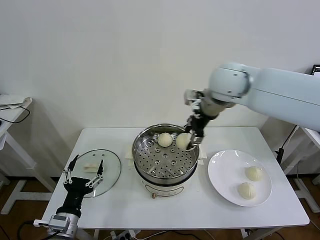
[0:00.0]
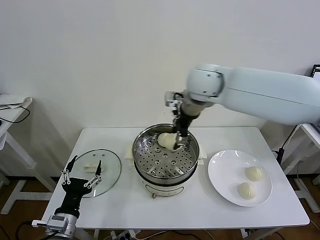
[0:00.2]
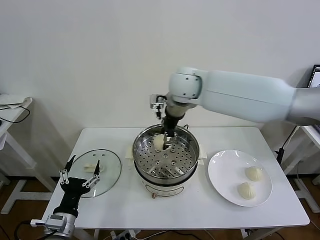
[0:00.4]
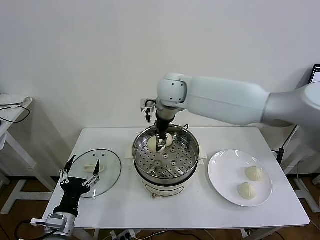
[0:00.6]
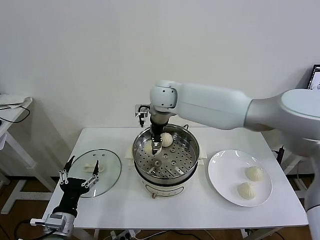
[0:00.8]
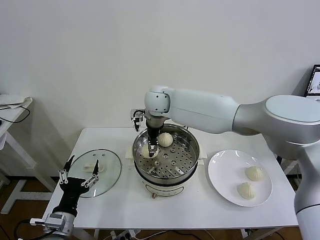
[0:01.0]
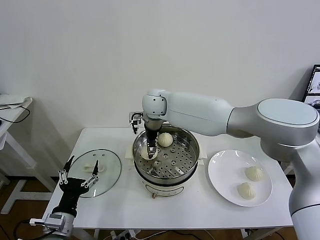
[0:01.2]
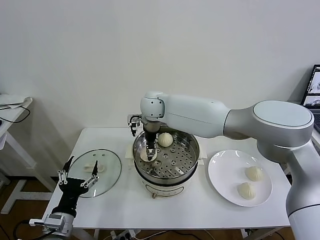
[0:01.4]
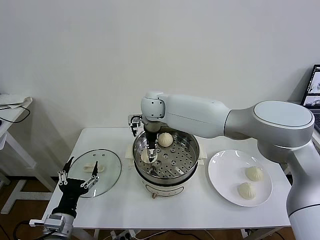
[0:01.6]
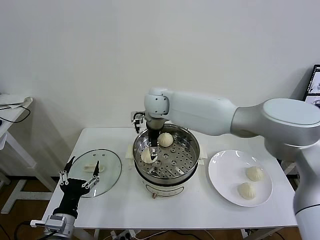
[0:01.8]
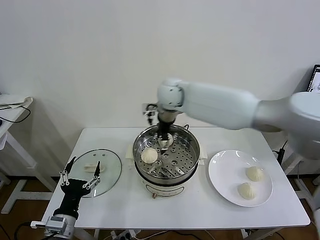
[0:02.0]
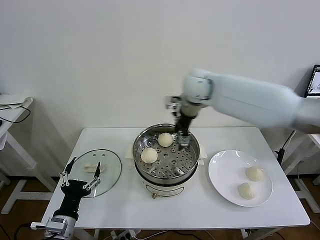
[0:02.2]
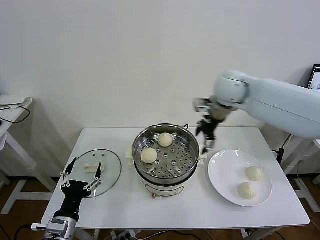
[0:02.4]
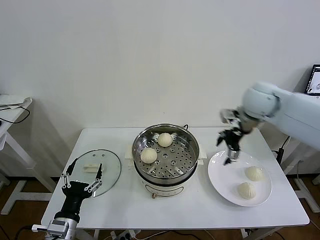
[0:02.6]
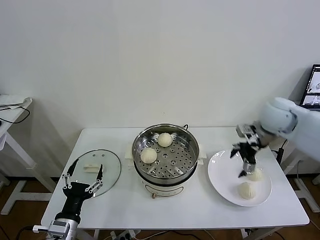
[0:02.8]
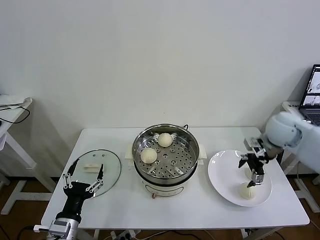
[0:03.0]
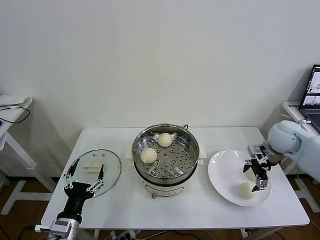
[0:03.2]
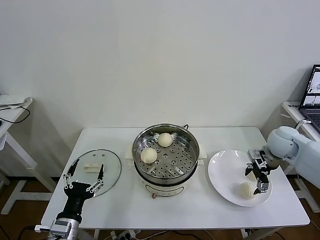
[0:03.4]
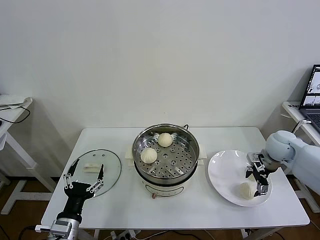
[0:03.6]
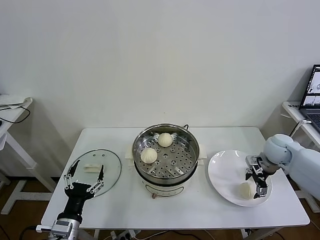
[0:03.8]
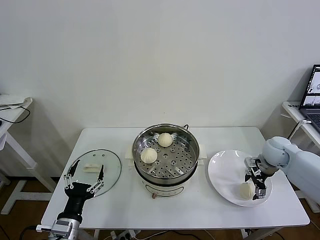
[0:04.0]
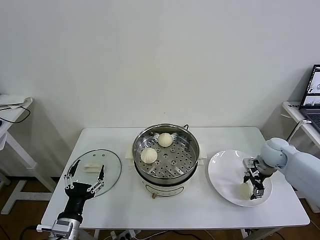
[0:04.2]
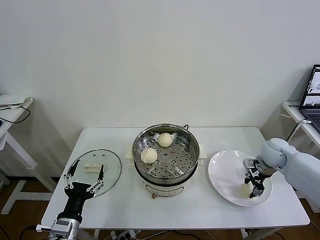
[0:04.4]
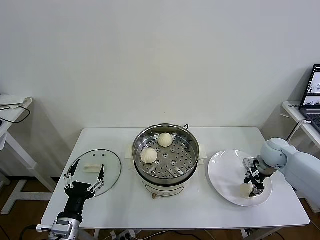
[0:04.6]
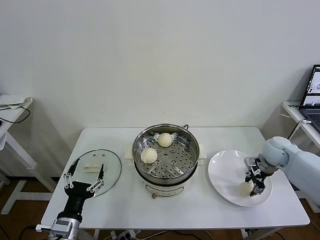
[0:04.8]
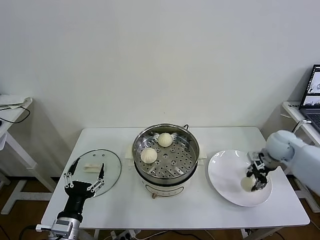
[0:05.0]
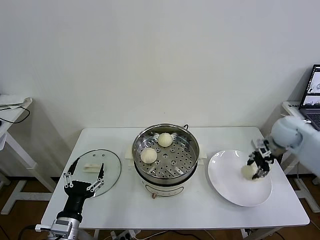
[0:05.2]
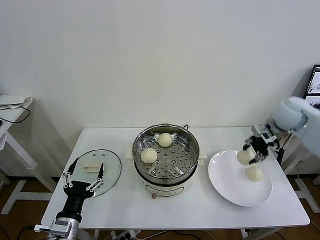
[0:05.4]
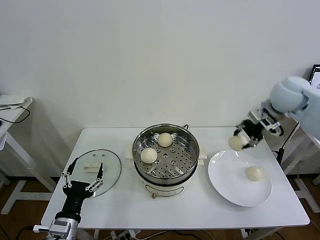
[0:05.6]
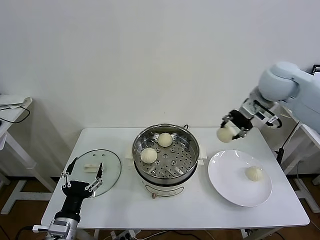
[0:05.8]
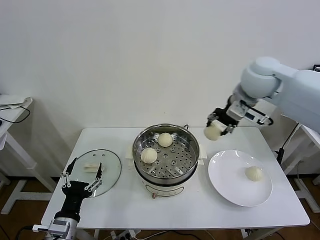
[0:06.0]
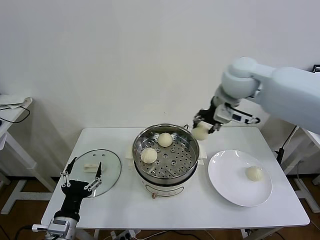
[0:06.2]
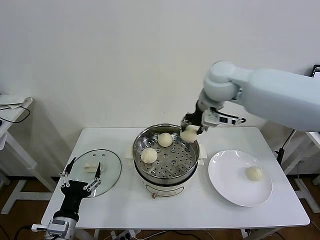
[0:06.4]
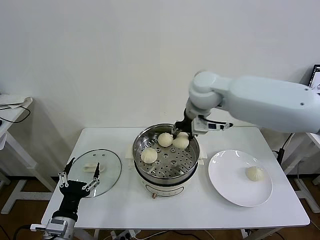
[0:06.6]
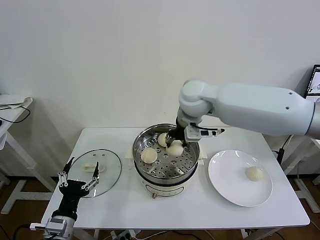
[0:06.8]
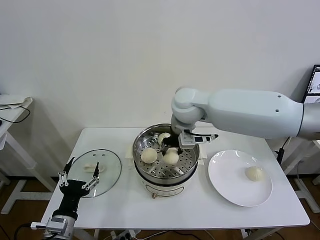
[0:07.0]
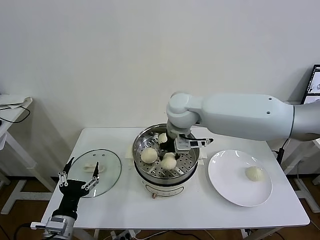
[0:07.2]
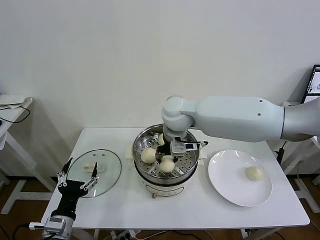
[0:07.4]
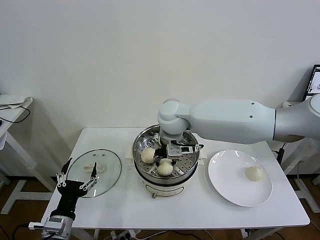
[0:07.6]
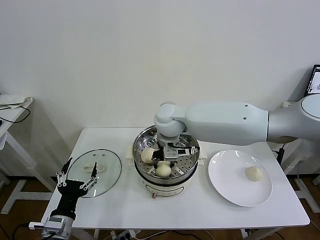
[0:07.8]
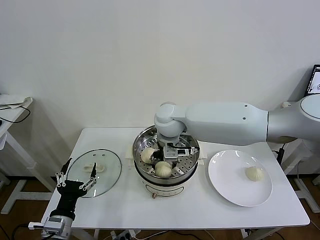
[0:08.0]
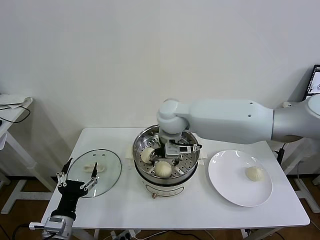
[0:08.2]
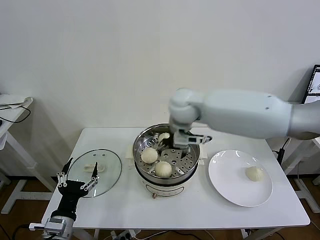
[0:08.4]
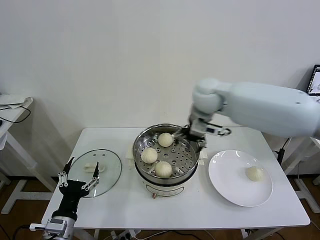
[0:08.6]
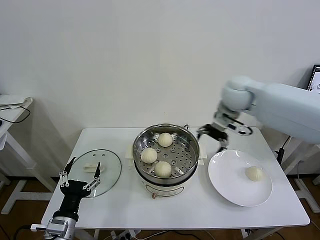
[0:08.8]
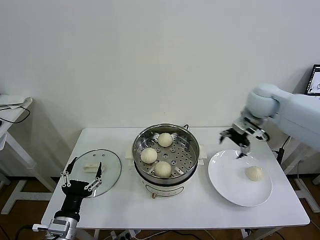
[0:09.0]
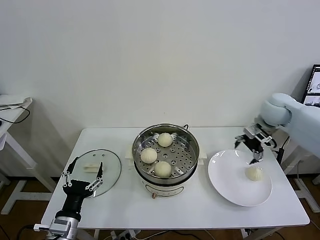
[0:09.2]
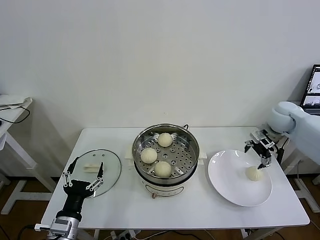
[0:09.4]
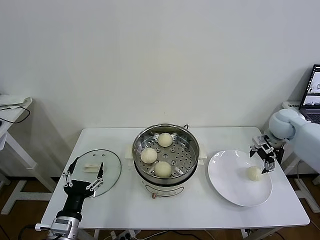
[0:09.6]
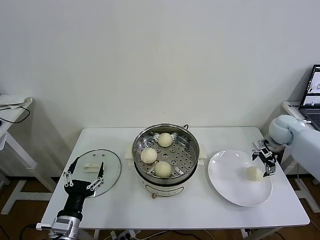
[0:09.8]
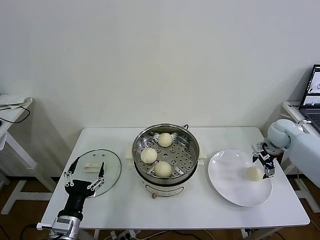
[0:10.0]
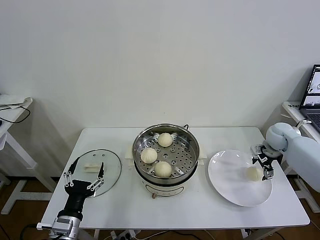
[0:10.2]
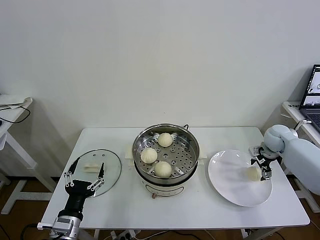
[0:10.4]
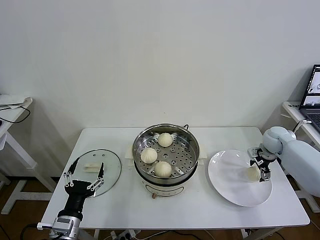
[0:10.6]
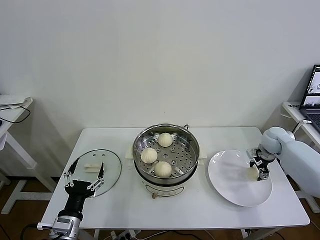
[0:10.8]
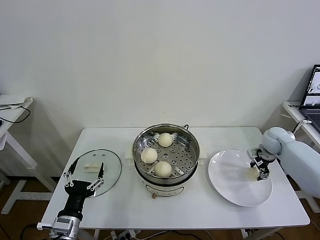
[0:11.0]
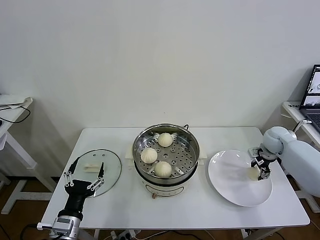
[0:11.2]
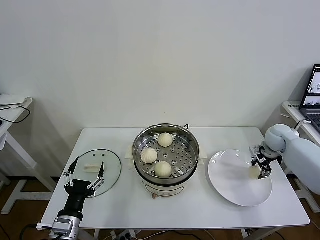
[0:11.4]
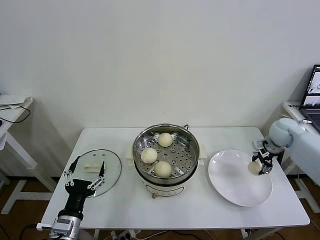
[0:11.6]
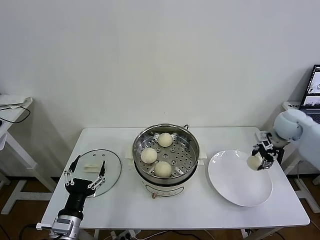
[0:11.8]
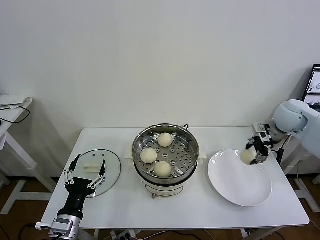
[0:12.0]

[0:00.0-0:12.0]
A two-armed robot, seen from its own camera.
Task of the whole recording: take steamed baozi put them in steamer then cover it.
Step, 0:00.0 to 0:01.6: Place the baozi on the steamer with right gripper.
Step, 0:01.8 to 0:04.4: Grasp the baozi in the plate with right gripper.
Step, 0:04.6 to 0:08.0: Place the baozi on the steamer with right gripper.
Step, 0:08.2 to 0:11.0: Grasp the baozi in the plate with right gripper.
0:00.0 to 0:01.6: The right gripper shifts some 20 cm to the left and downward, and opens its fingers.
0:01.6 to 0:03.0: The right gripper is displaced to the right by approximately 40 cm.
0:03.0 to 0:04.4: The right gripper moves downward, some 10 cm, and closes up.
0:04.4 to 0:06.0: The right gripper is displaced upward and to the left by about 35 cm.
0:06.0 to 0:07.6: The right gripper moves to the left and downward, about 25 cm.
0:07.6 to 0:09.0: The right gripper goes roughly 30 cm to the right, and opens.
0:09.0 to 0:10.4: The right gripper travels downward and to the right by roughly 20 cm.
0:10.4 to 0:12.0: The right gripper travels upward by about 15 cm, and closes.

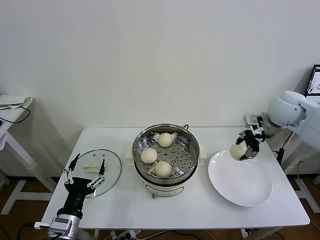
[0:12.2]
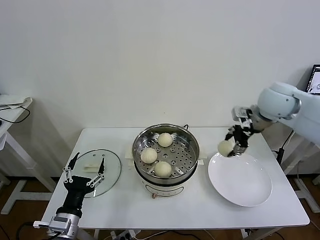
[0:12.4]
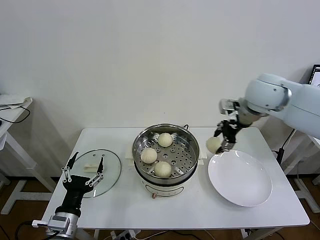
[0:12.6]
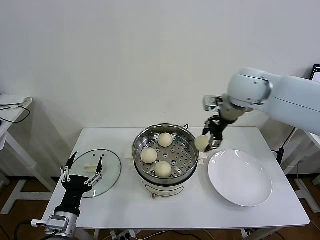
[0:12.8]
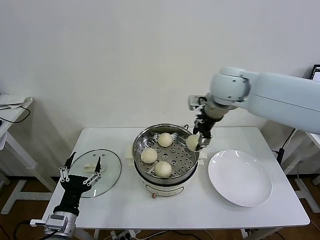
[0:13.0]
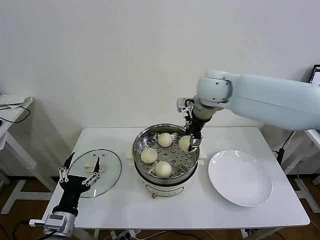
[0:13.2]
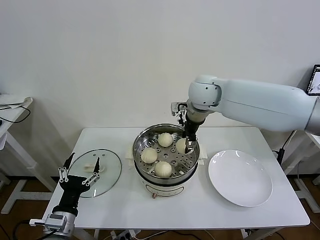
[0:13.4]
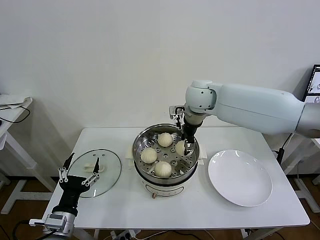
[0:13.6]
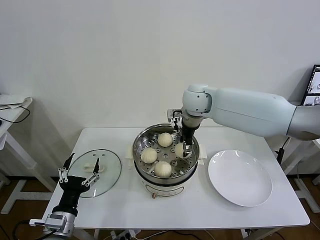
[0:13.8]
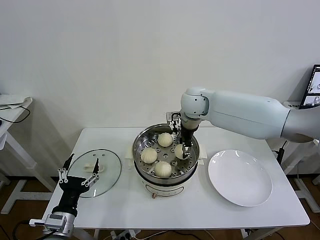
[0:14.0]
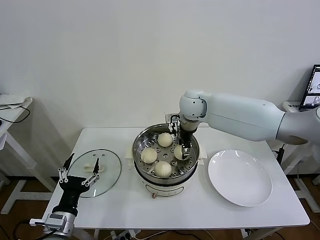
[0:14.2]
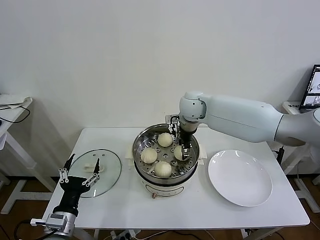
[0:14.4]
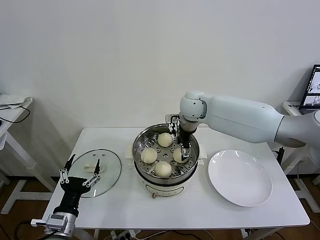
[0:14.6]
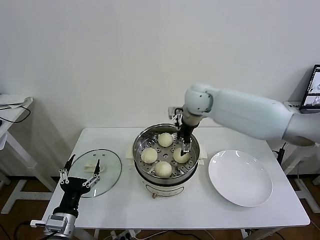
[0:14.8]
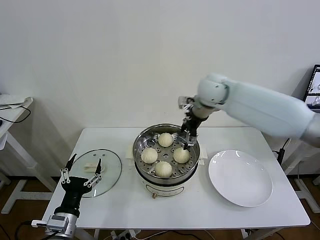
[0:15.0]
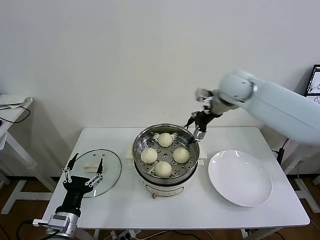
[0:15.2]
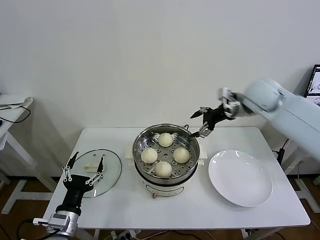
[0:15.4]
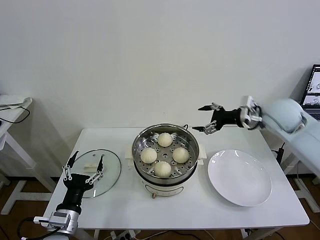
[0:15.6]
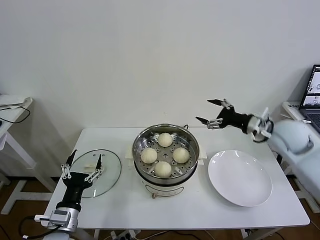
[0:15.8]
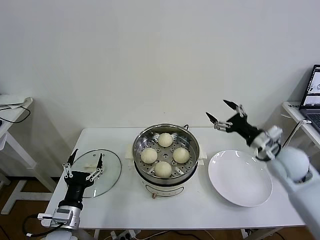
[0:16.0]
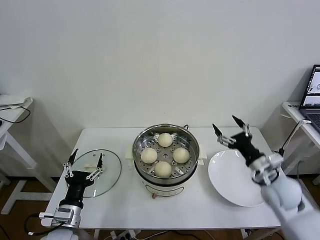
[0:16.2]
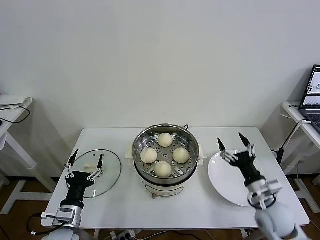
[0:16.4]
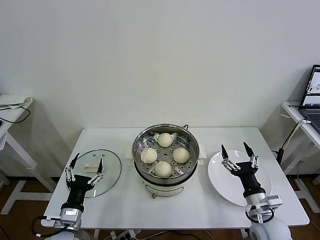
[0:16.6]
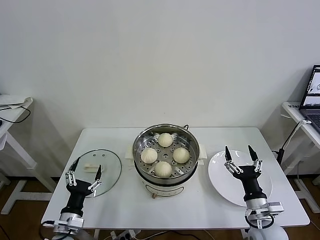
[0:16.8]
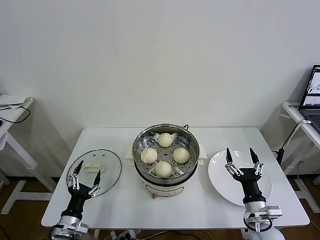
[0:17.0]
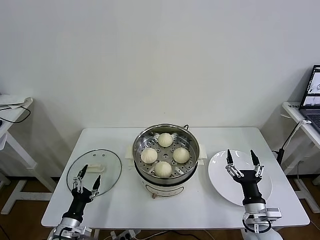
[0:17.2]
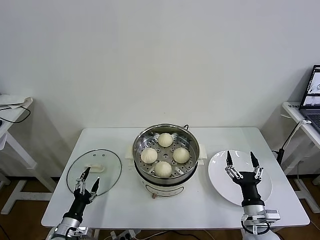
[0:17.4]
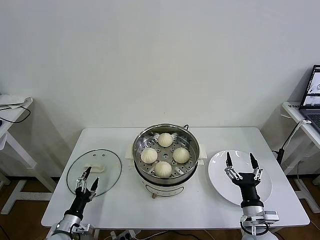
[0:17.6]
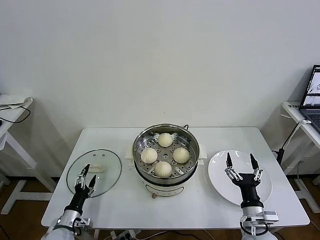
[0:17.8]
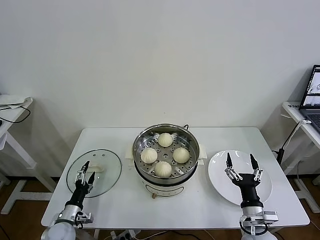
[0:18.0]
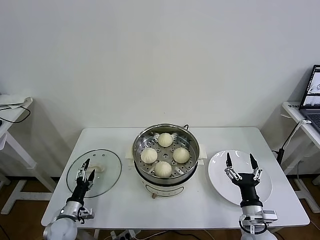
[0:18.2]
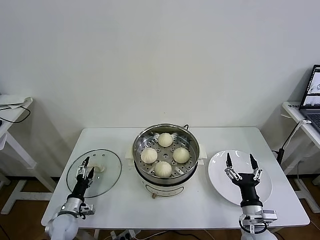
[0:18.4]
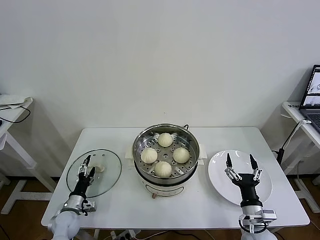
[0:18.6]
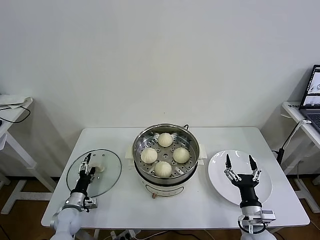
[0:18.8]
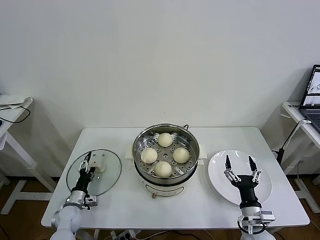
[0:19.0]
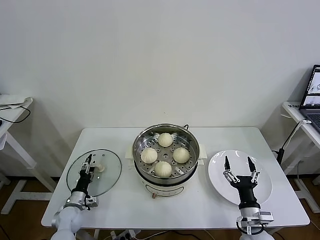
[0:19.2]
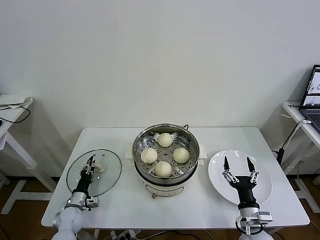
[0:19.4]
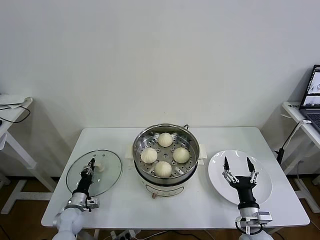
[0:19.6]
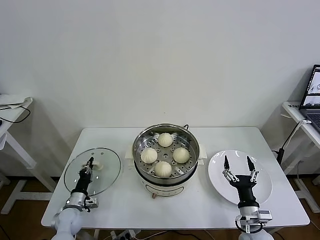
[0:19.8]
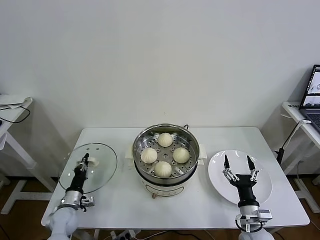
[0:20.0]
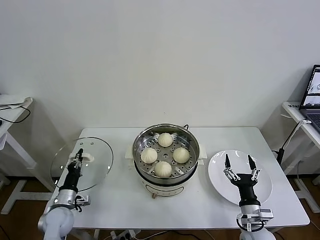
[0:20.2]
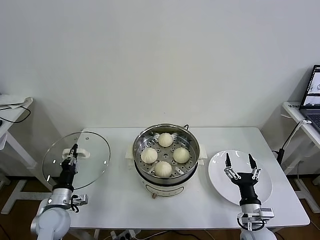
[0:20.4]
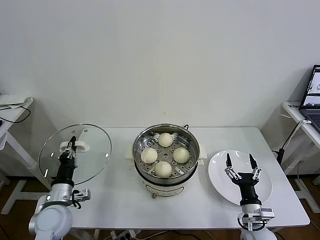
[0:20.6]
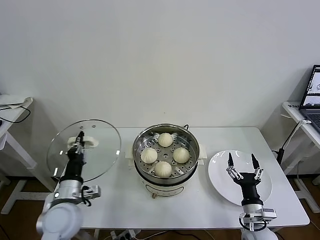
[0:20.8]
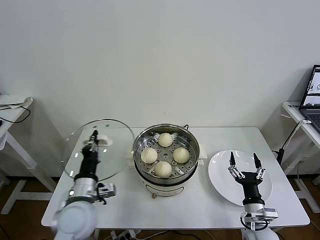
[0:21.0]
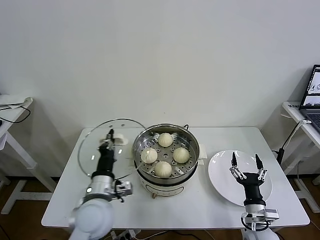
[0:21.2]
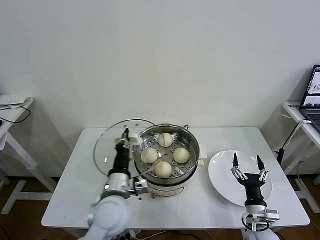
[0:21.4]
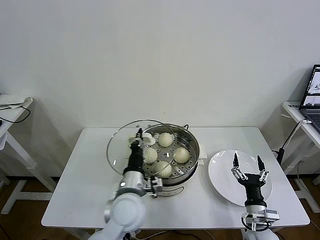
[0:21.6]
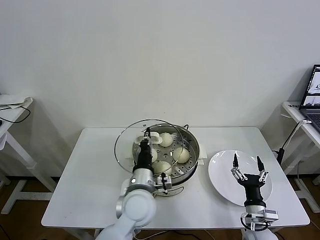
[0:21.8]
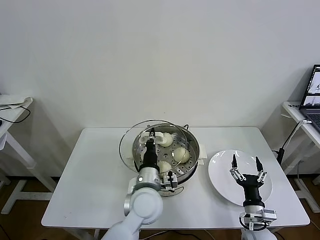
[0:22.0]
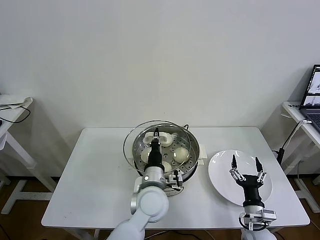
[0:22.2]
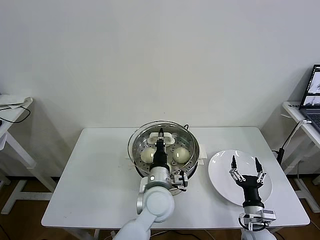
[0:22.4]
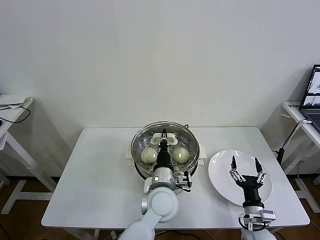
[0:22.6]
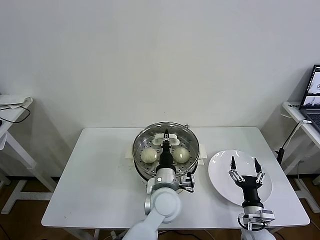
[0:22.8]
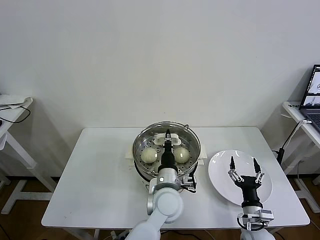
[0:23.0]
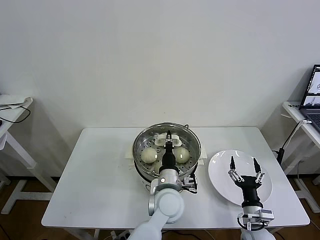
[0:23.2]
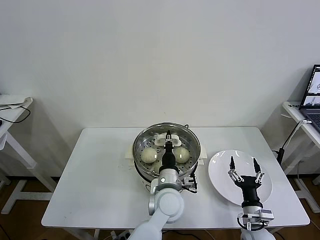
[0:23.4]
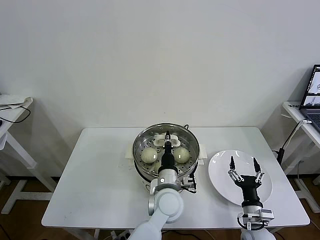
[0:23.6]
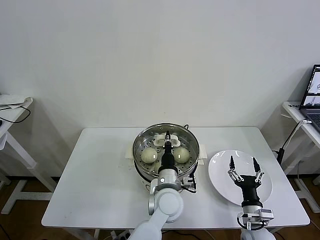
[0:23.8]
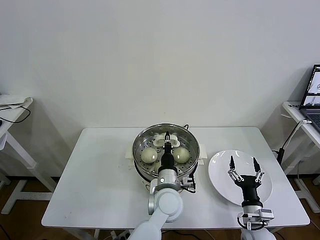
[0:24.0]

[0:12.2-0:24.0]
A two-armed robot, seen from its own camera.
Task of the whole recording: take steamed baozi put them in steamer then cover it.
Step, 0:12.2 to 0:14.6: Place the baozi on the steamer with right gripper.
Step, 0:14.8 to 0:19.8: Grasp the pot lid with left gripper.
0:12.2 to 0:13.6: The right gripper shifts about 25 cm to the left.
0:13.6 to 0:15.2: The right gripper heads to the right, covering some 10 cm, and opens its fingers.
0:15.2 to 0:16.6: The right gripper travels backward and downward by roughly 40 cm.
0:16.6 to 0:18.2: The right gripper moves roughly 5 cm. Meanwhile the left gripper travels downward, to the left and forward by about 15 cm.
0:18.2 to 0:19.6: The left gripper shifts by roughly 5 cm, and closes.
0:19.6 to 0:21.0: The left gripper travels upward and to the right by some 25 cm.
0:21.0 to 0:22.6: The left gripper shifts some 25 cm to the right.
0:22.6 to 0:24.0: There are only small adjustments of the grippers.
